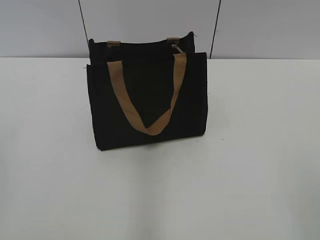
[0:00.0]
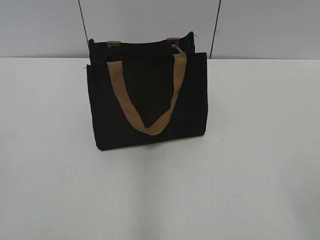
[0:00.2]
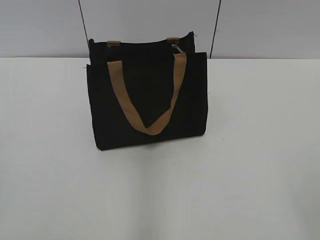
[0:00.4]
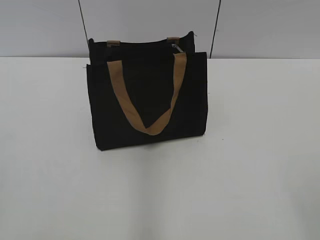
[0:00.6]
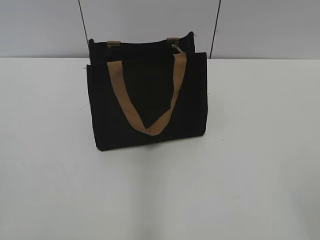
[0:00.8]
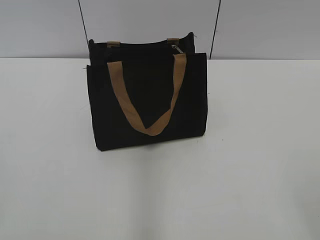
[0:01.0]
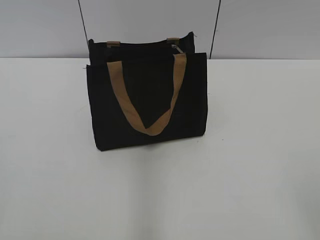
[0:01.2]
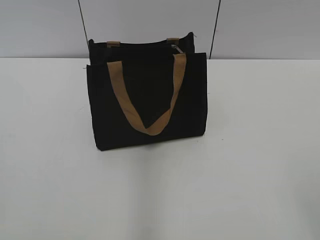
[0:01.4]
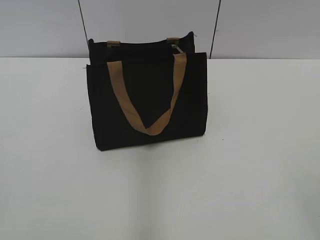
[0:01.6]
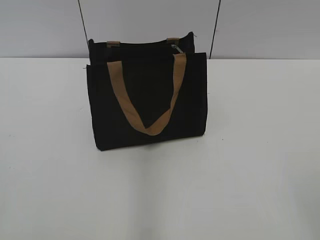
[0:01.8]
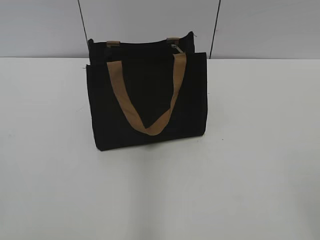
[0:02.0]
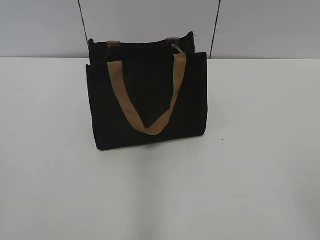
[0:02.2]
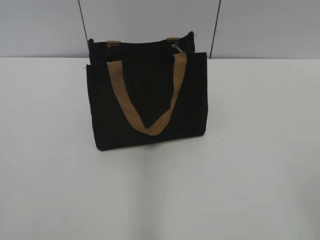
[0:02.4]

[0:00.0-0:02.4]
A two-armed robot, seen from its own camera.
0:01.2 to 0:02.4: Both grippers stay about where they are.

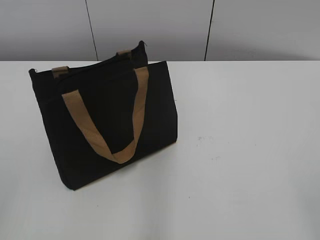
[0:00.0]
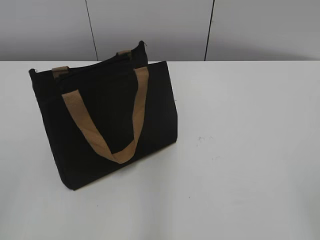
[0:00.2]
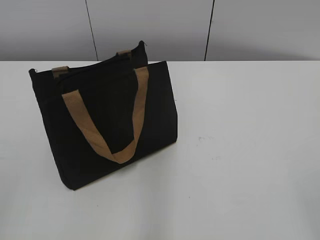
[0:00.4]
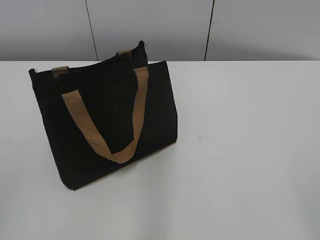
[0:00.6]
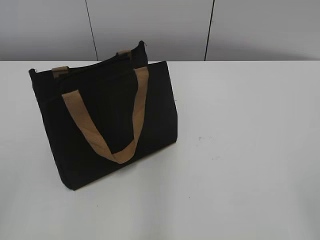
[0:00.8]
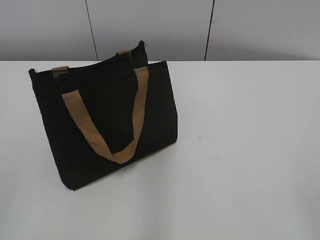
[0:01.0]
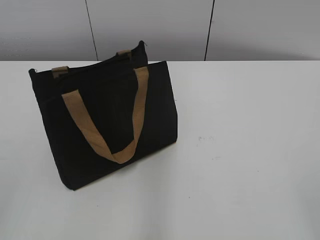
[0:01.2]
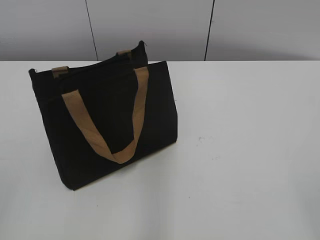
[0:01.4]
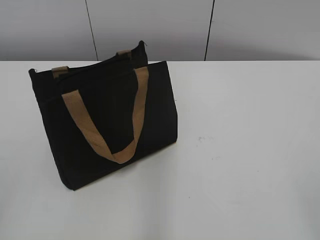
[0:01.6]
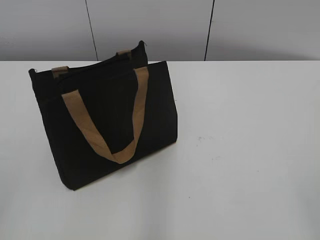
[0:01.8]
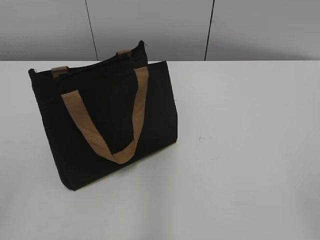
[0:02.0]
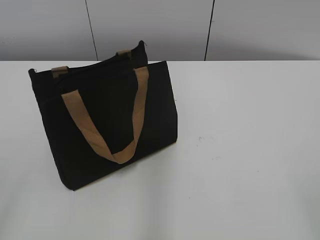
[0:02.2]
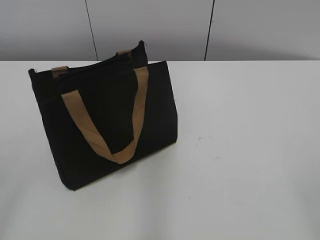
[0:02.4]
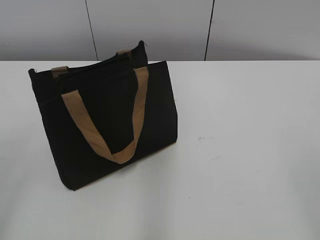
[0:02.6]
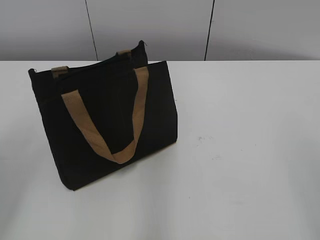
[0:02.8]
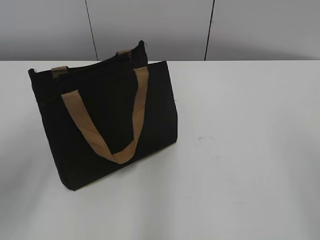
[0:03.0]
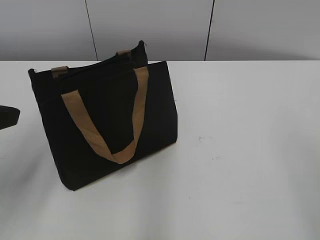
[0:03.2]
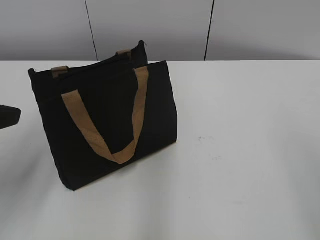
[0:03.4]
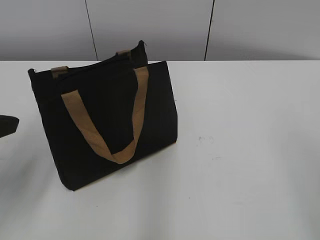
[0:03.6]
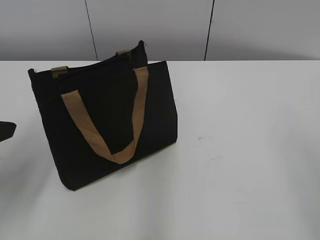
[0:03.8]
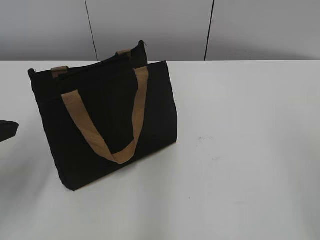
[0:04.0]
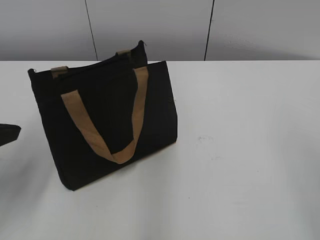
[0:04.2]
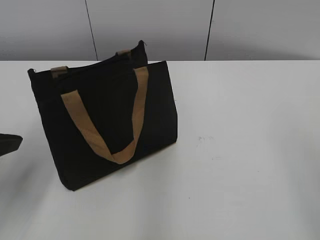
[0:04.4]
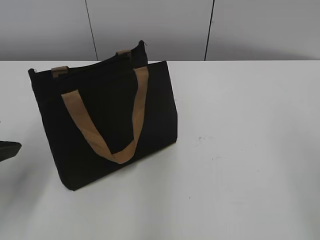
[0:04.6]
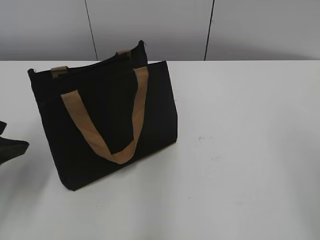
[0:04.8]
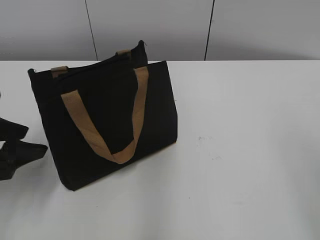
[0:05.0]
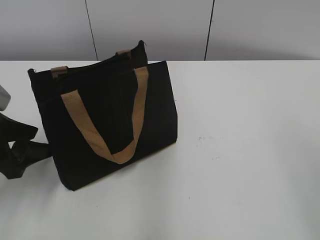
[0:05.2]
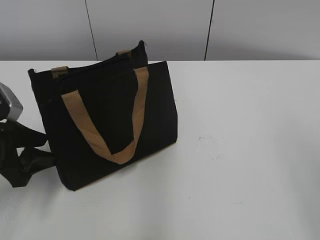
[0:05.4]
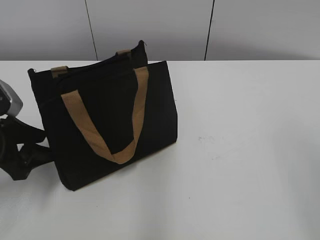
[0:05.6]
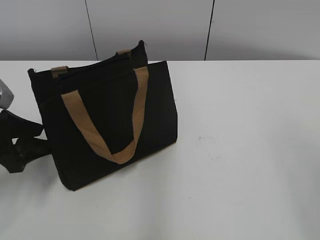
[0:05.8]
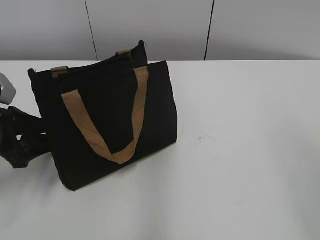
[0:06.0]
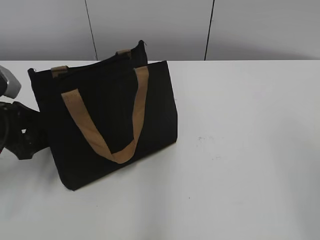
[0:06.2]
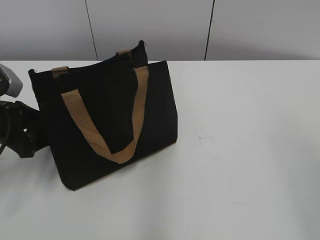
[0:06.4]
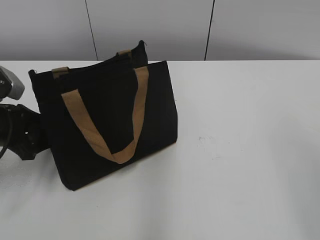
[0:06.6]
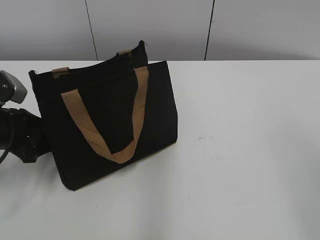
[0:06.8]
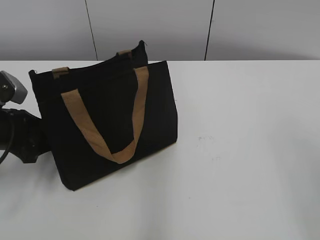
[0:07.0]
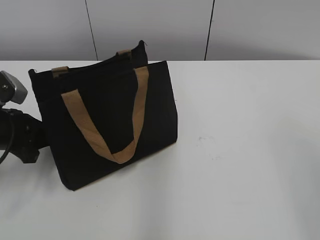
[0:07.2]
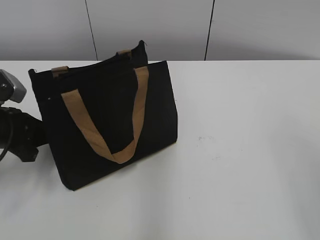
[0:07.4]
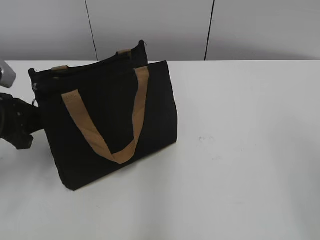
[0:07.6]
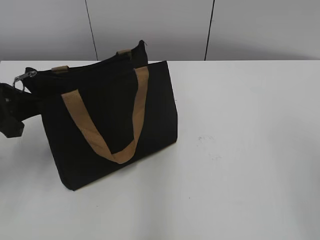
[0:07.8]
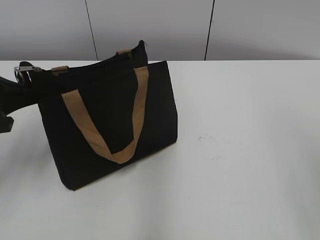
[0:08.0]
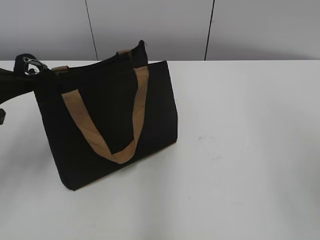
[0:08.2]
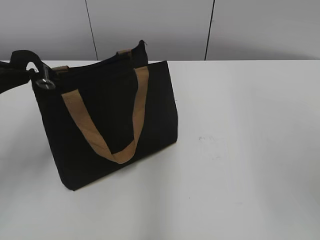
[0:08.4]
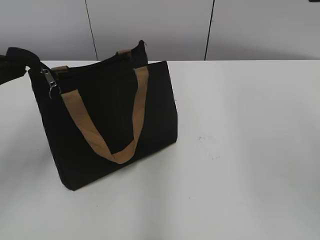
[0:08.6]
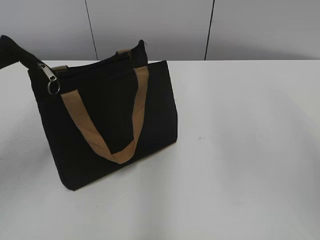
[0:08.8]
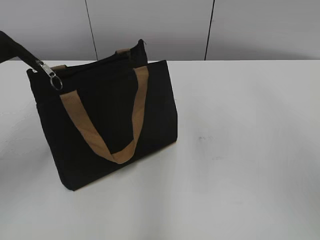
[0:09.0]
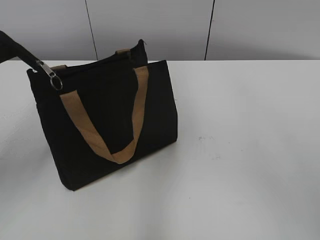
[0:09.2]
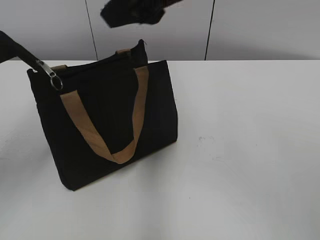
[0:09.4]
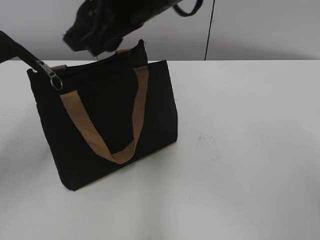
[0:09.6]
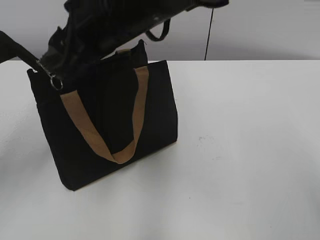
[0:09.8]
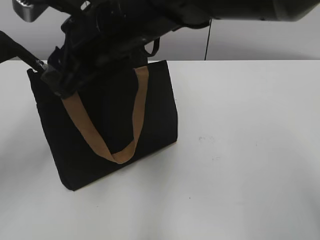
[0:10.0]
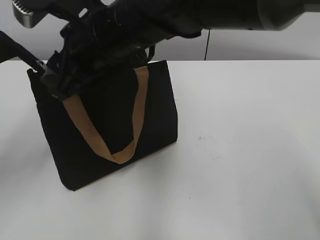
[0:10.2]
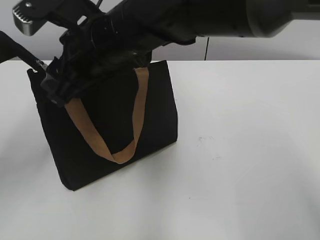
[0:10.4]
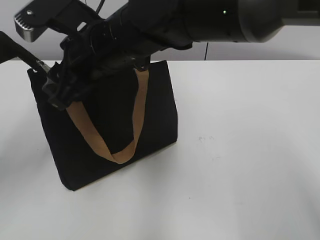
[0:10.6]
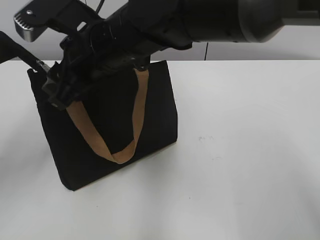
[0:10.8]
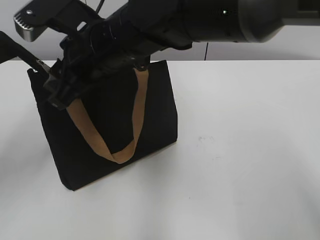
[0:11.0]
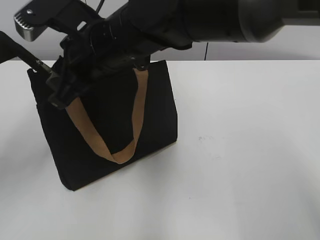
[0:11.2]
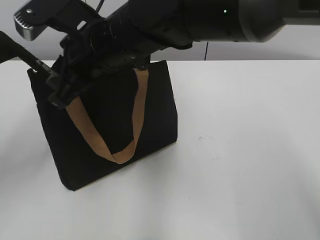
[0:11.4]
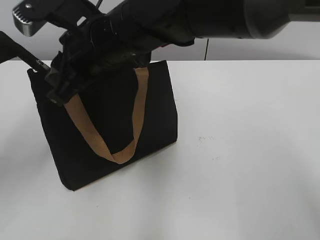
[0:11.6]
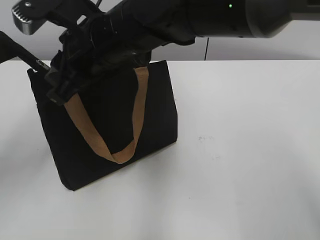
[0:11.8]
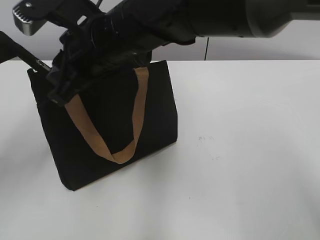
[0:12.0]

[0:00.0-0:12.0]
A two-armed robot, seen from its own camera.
0:01.6 to 0:03.0: The left gripper moves forward, some 15 cm, and opens up.
0:03.0 to 0:04.4: The left gripper travels downward by approximately 5 cm.
0:04.4 to 0:06.0: The left gripper heads downward and forward, covering approximately 10 cm.
0:06.0 to 0:07.6: The left gripper closes.
0:07.6 to 0:09.0: The left gripper travels upward by about 15 cm.
0:09.0 to 0:10.4: The right gripper travels to the left and downward by some 25 cm.

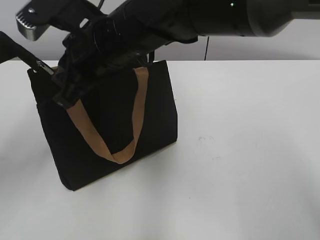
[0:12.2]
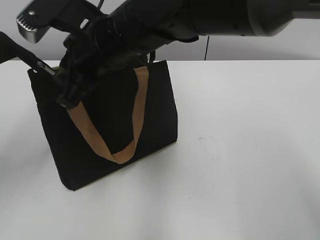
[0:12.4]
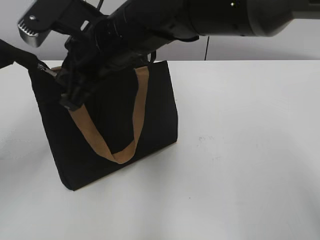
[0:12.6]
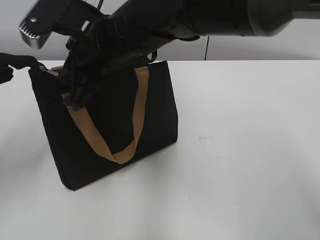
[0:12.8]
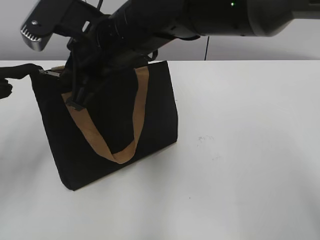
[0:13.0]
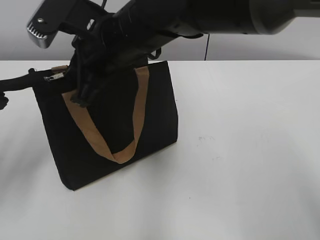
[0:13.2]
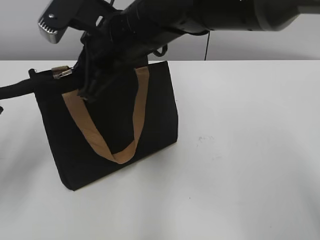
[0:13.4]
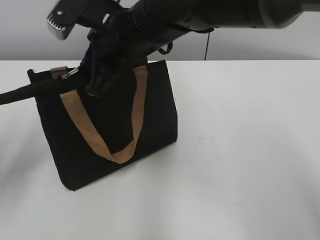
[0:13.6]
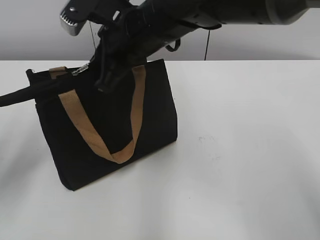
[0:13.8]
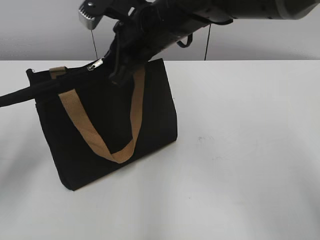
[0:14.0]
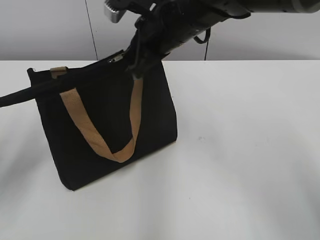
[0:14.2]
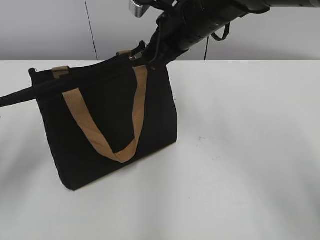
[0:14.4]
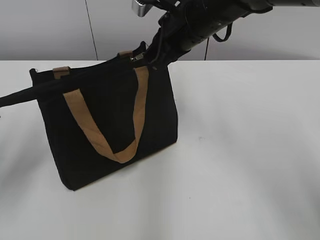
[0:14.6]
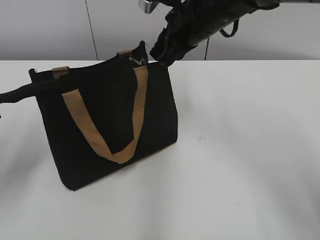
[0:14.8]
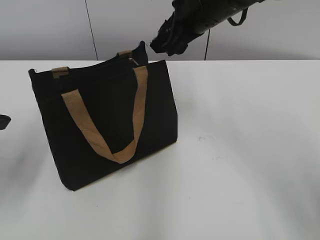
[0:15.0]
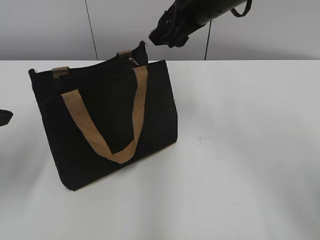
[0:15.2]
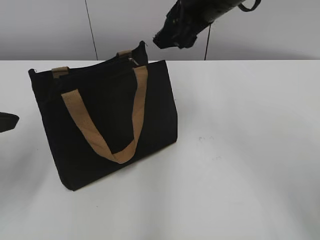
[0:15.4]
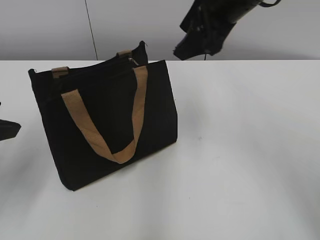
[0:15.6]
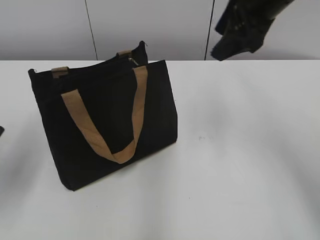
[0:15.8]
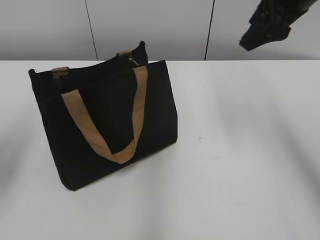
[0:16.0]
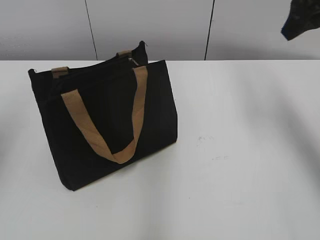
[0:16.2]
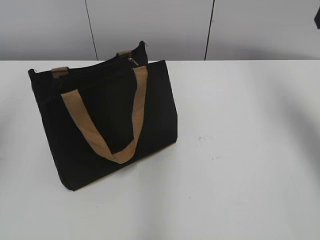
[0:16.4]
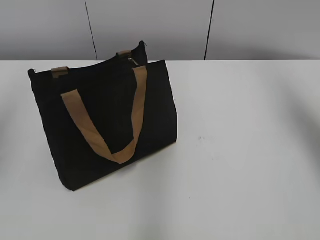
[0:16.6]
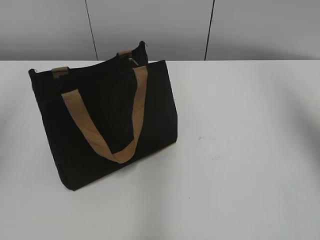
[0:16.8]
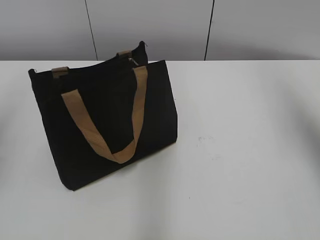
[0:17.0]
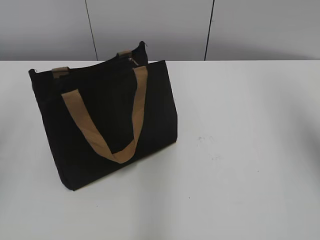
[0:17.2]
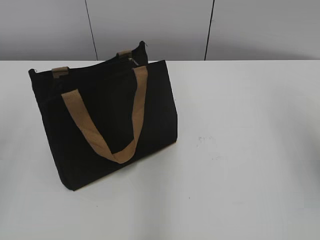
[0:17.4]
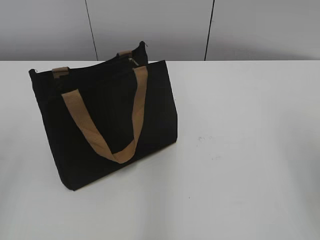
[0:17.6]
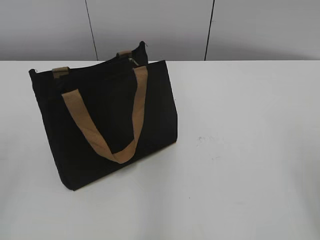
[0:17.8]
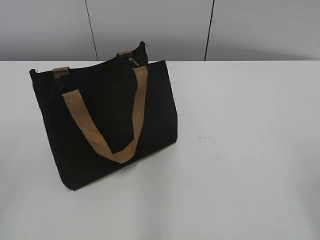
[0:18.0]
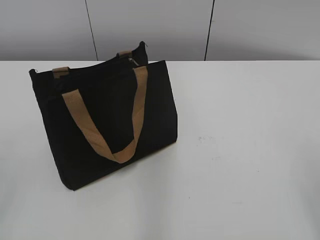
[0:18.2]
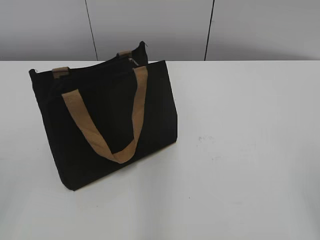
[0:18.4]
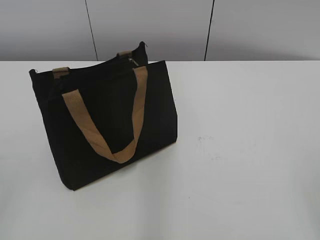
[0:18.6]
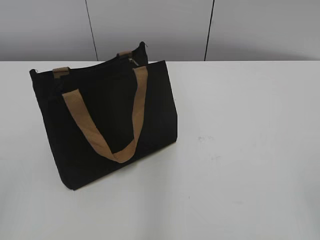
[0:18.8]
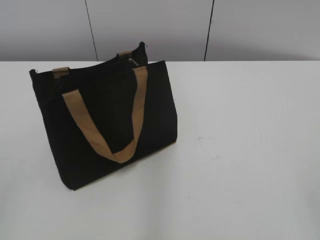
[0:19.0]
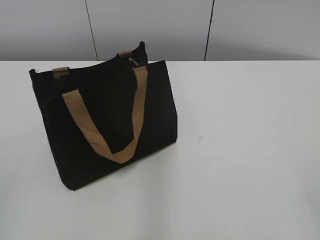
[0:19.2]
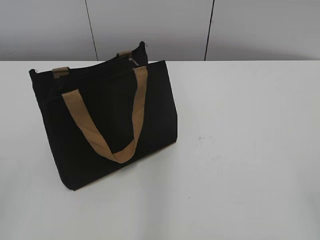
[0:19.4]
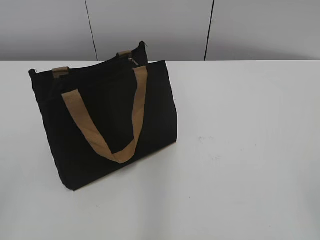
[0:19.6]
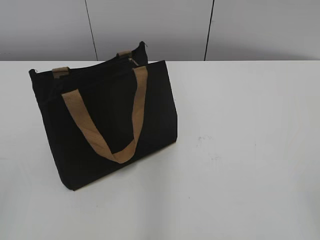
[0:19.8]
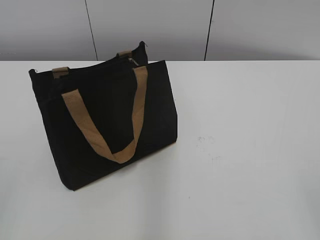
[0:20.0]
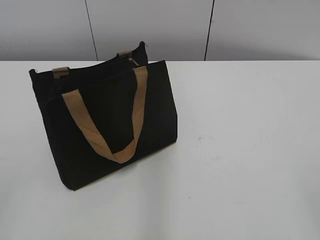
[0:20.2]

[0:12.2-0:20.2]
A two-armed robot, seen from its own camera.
Step, 0:12.2 to 0:14.6: Zip up the bag with your right hand.
0:13.8 to 0:15.4: The right gripper heads to the right, covering some 10 cm, and opens its fingers. The left gripper opens up.
0:15.4 to 0:17.0: The right gripper travels to the right and upward by about 20 cm. Meanwhile the left gripper goes roughly 10 cm upward.
0:17.0 to 0:18.6: Both grippers travel together backward, about 25 cm.
